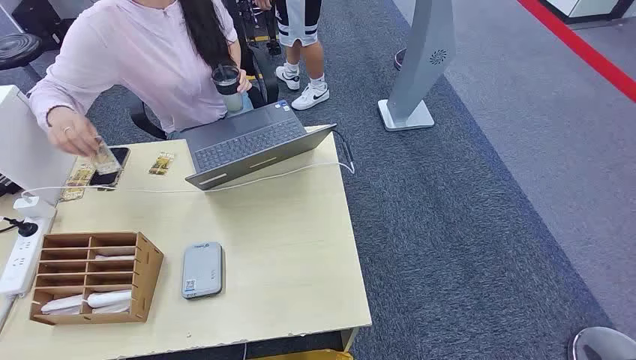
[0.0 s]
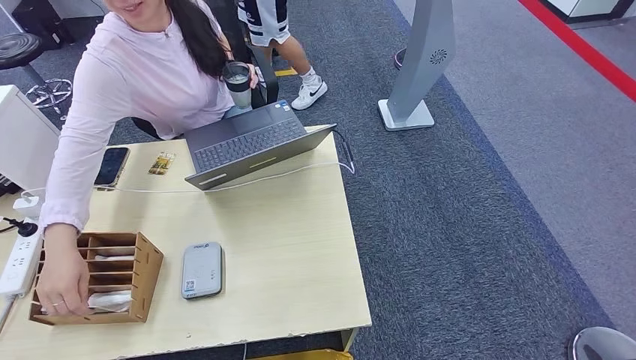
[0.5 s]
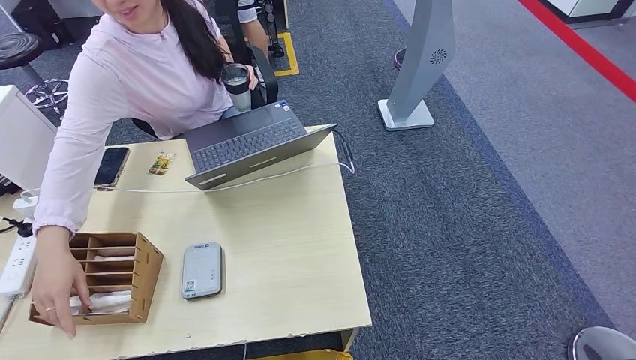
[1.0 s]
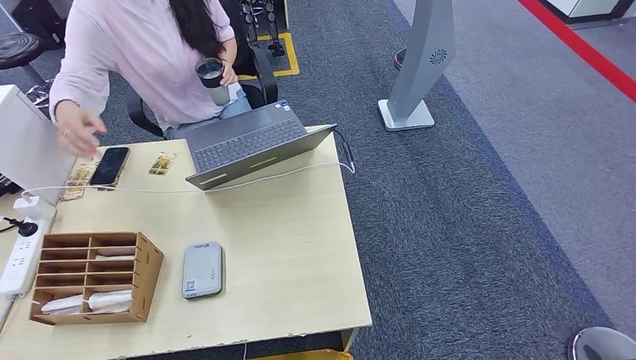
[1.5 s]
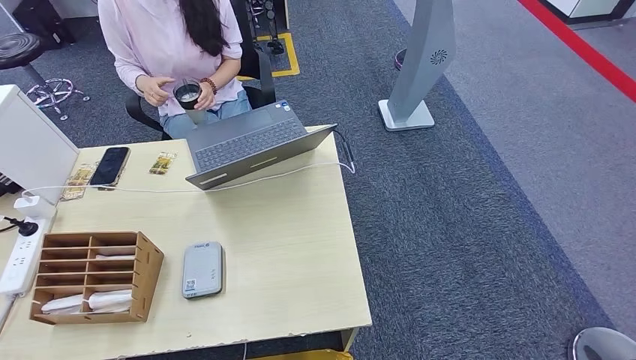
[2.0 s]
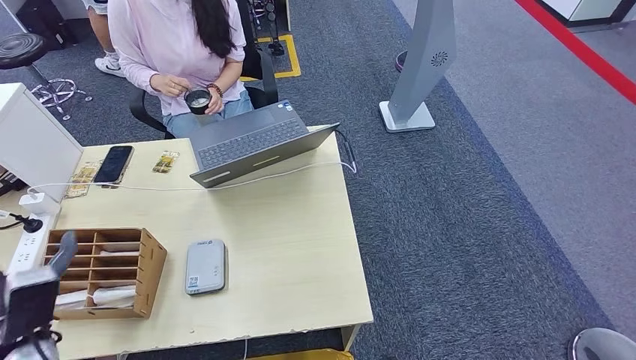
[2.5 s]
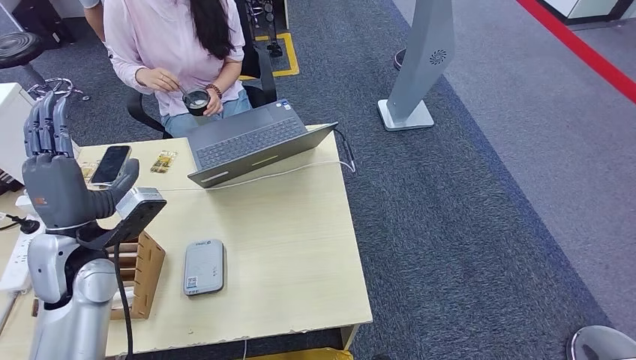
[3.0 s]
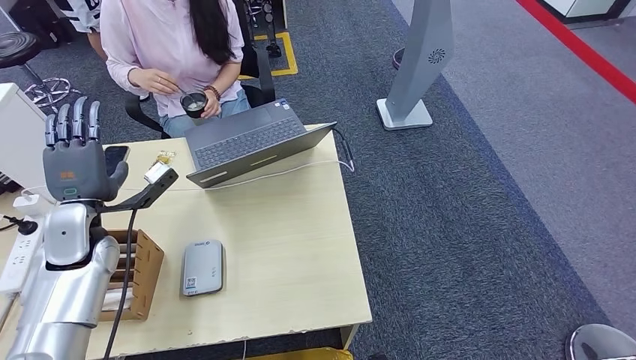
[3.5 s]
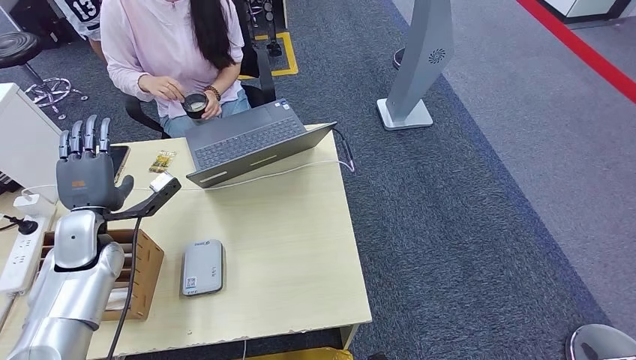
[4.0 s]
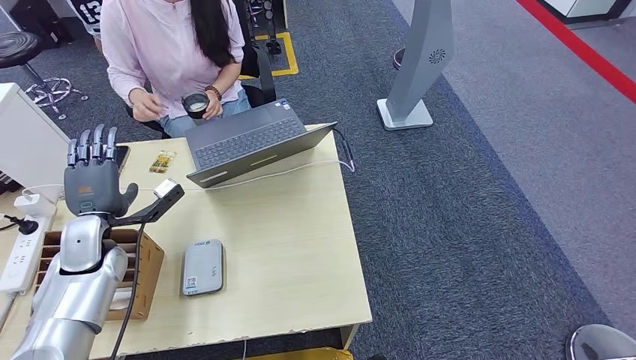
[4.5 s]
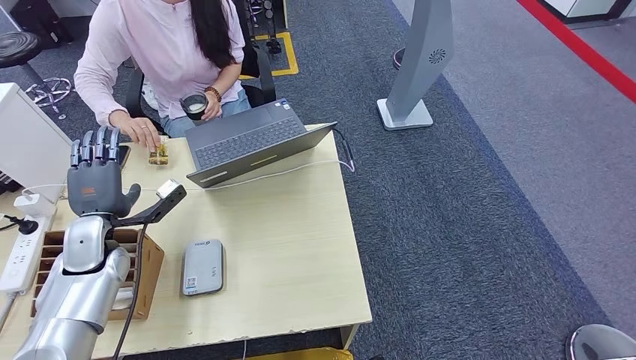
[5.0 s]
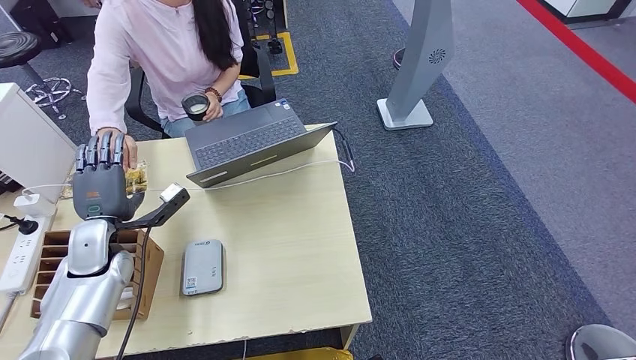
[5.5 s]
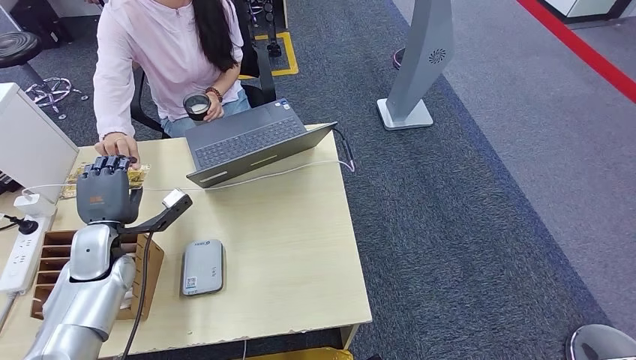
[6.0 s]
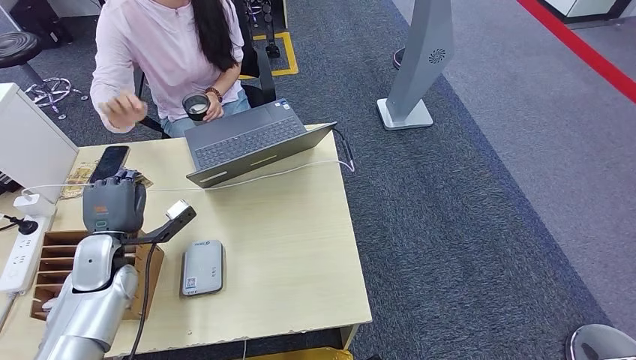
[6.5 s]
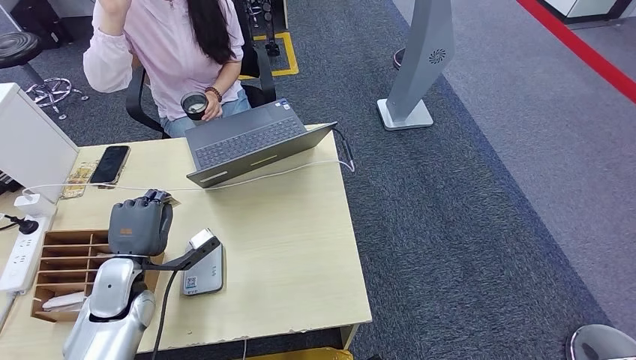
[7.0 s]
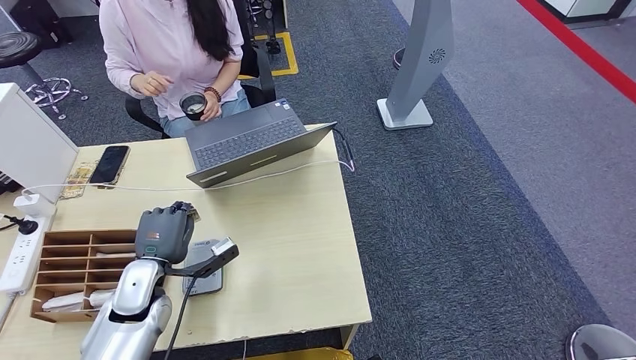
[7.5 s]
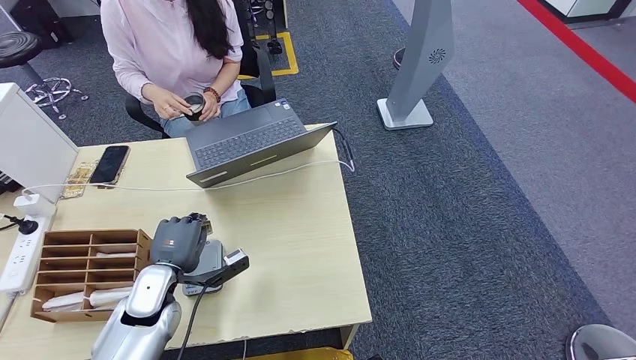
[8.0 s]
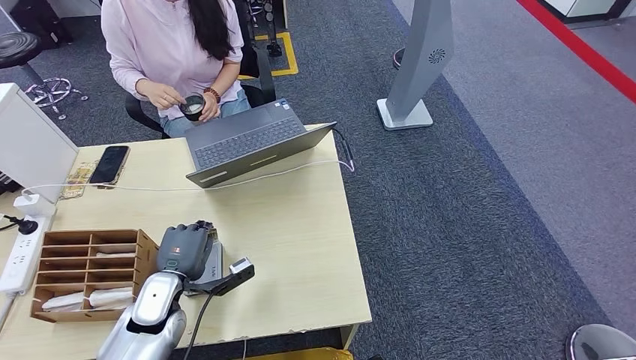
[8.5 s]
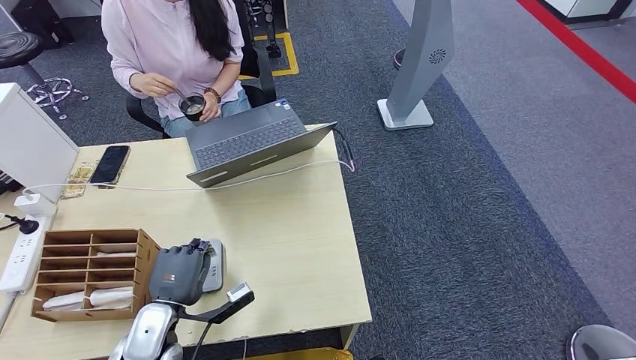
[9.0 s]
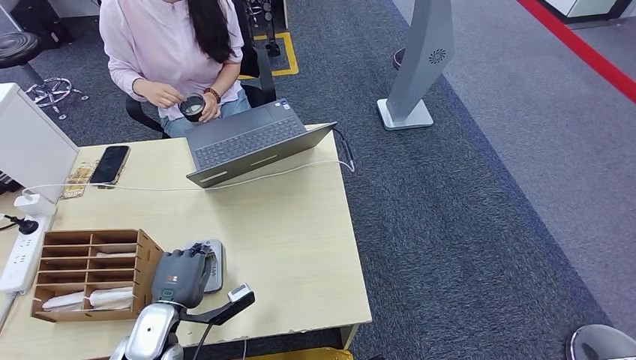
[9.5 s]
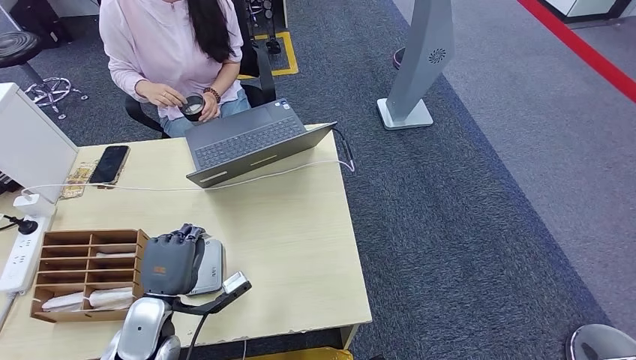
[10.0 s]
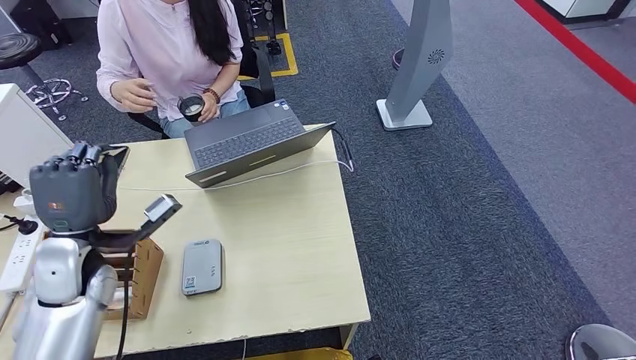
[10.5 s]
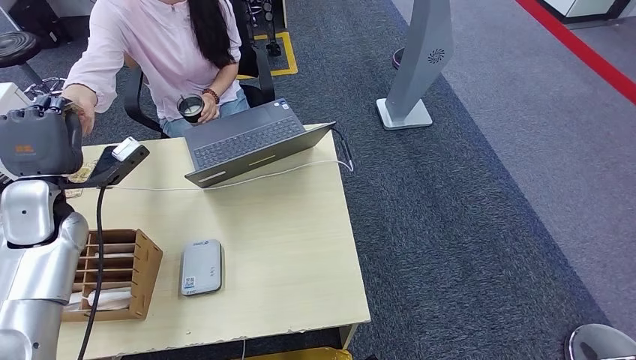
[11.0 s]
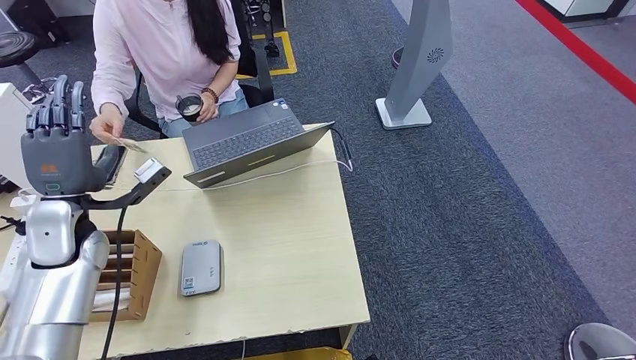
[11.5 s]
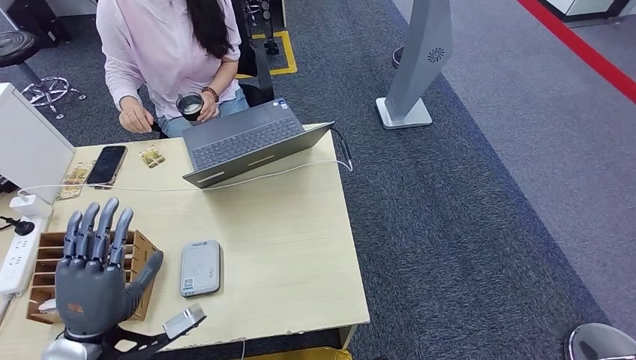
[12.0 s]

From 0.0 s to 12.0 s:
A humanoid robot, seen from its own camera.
Step, from 0.0 s to 6.0 s: Take the ID card from the person's hand.
Step, from 6.5 s to 10.5 s: Place the ID card on the card reader.
From 2.0 s to 4.0 s: The left hand travels forward, to the right and upward by roughly 50 cm.
From 4.0 s to 6.0 s: The hands stay close to where they were, moving slightly.
From 6.0 s to 8.0 s: The left hand shifts approximately 10 cm to the right, backward and downward.
From 8.0 s to 10.0 s: The left hand moves backward, approximately 5 cm.
From 10.0 s to 12.0 s: The left hand travels upward and to the left by about 10 cm, and reaches about 15 cm forward, then returns.

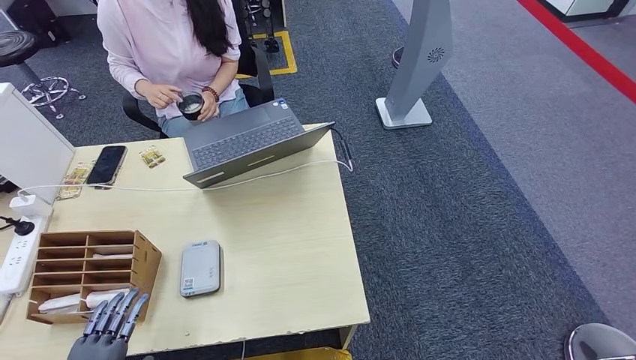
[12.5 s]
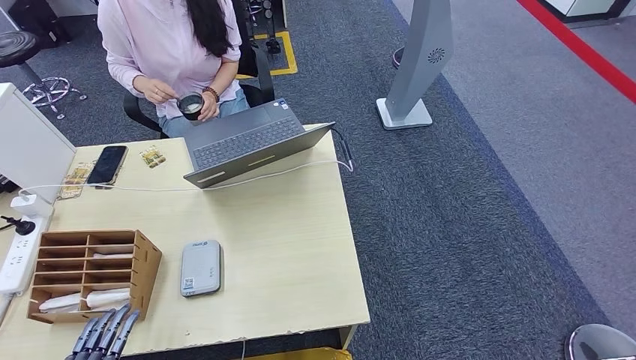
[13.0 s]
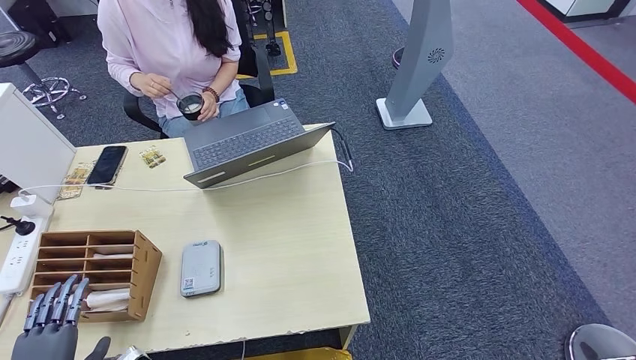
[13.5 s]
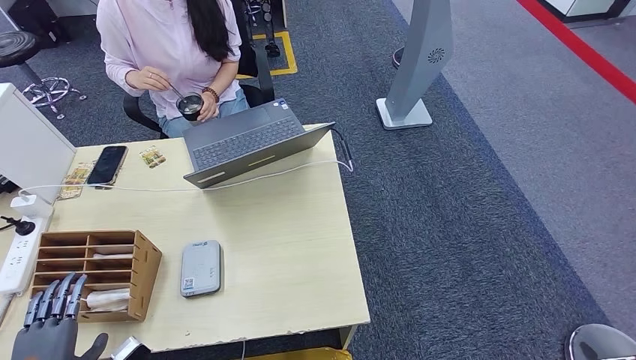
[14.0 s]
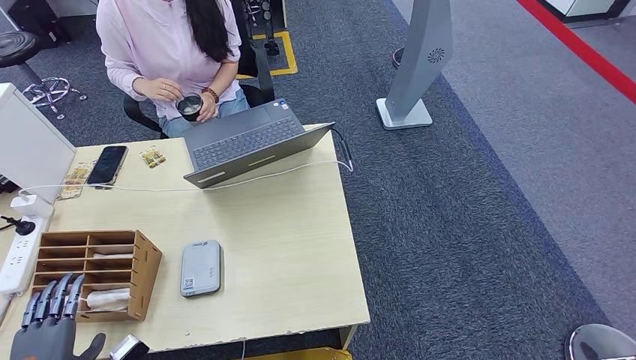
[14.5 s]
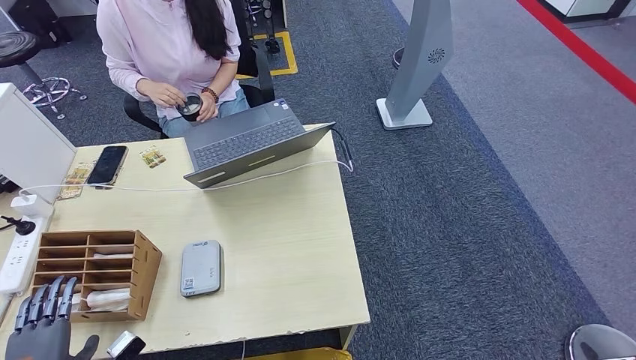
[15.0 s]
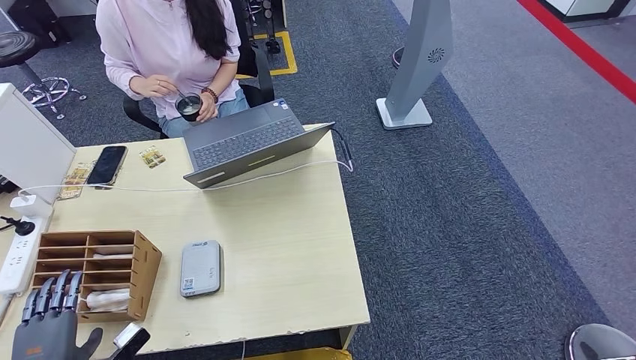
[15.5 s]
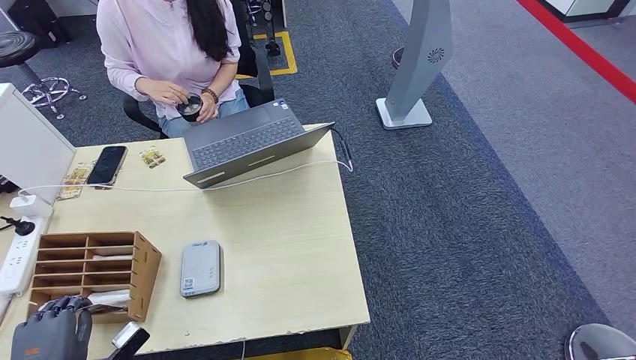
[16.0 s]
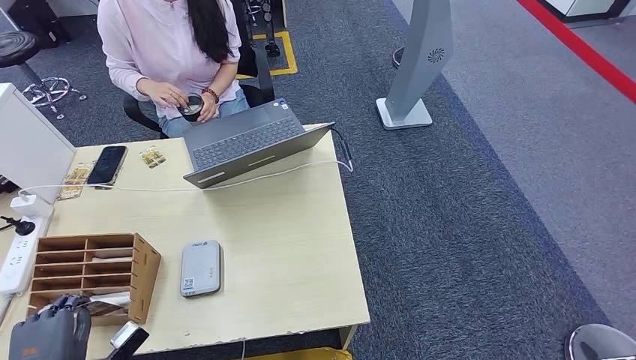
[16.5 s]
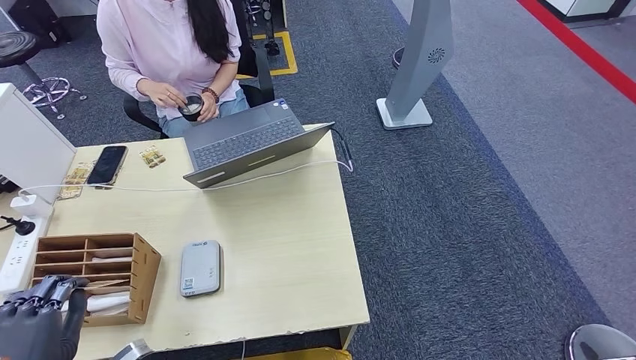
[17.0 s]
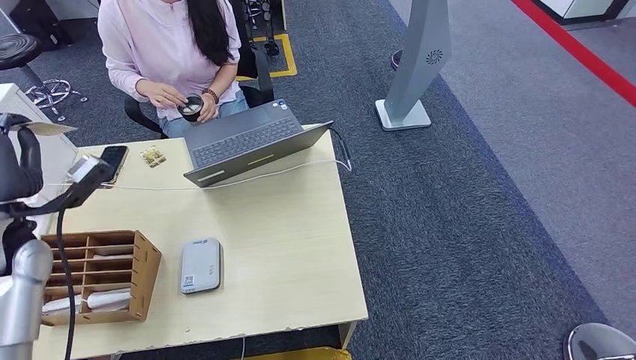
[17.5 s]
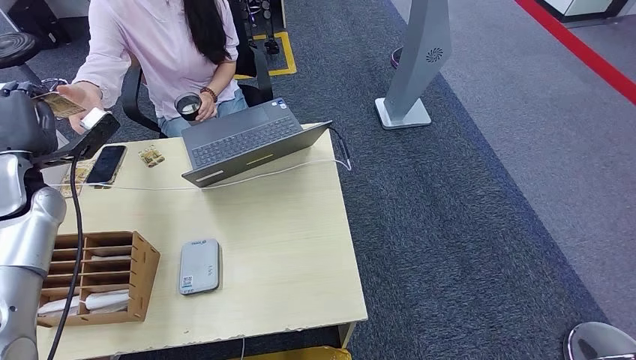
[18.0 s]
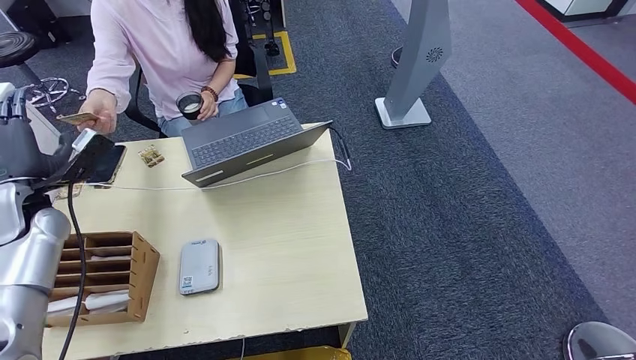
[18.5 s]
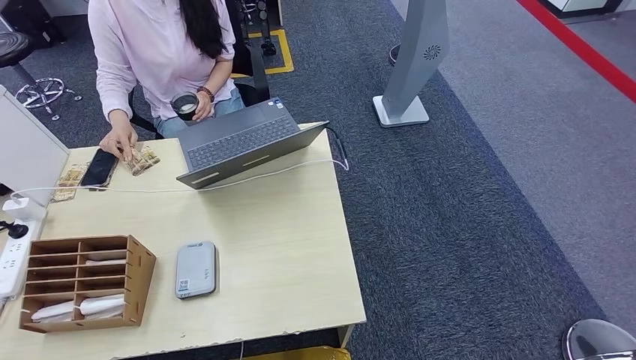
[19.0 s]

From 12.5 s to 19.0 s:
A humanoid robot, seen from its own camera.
Step, from 12.5 s to 17.0 s: Pick up the room key from the key card box.
Step, from 17.5 s to 19.0 s: Hand the room key to the person.
From 12.5 s to 14.5 s: The left hand goes roughly 5 cm to the left.
From 14.5 s to 17.0 s: The left hand goes some 10 cm upward.
From 17.0 s to 19.0 s: The left hand is displaced to the left by about 20 cm, and reaches roughly 30 cm forward, then returns.
